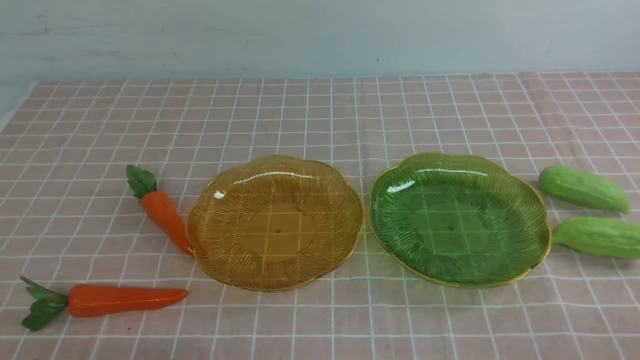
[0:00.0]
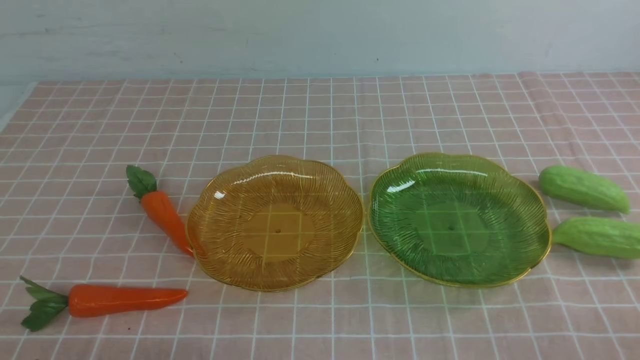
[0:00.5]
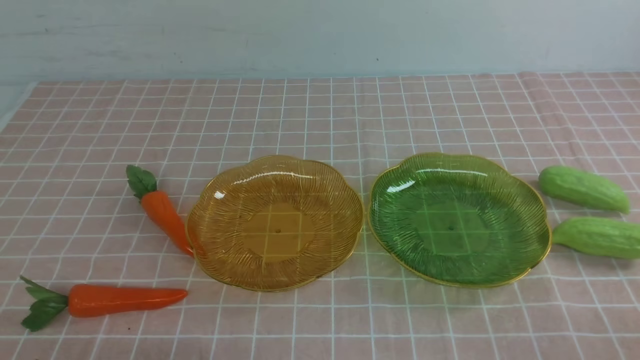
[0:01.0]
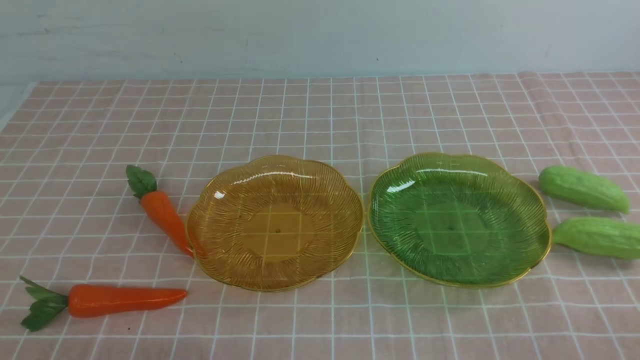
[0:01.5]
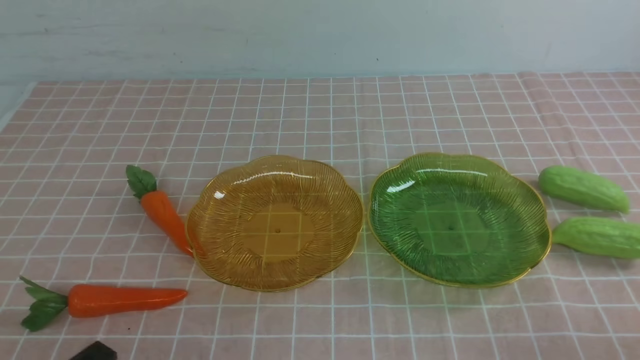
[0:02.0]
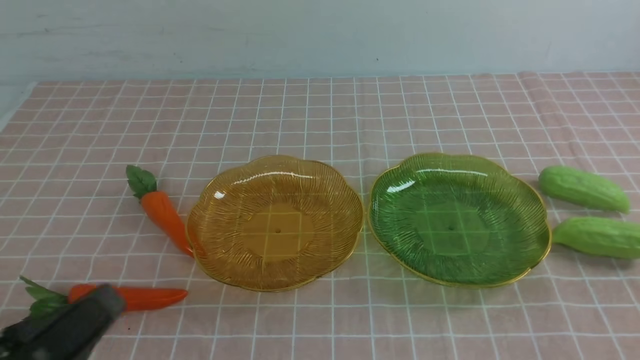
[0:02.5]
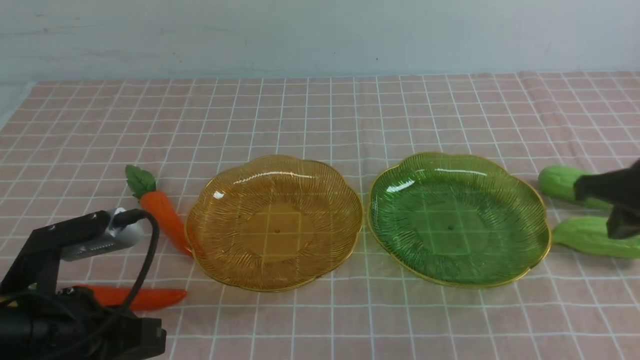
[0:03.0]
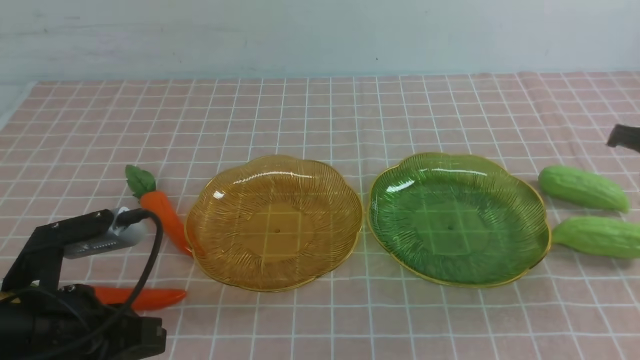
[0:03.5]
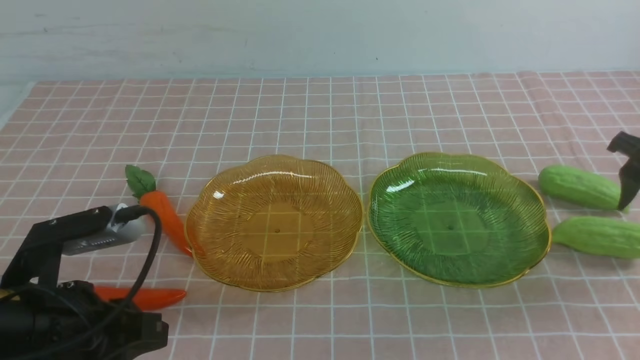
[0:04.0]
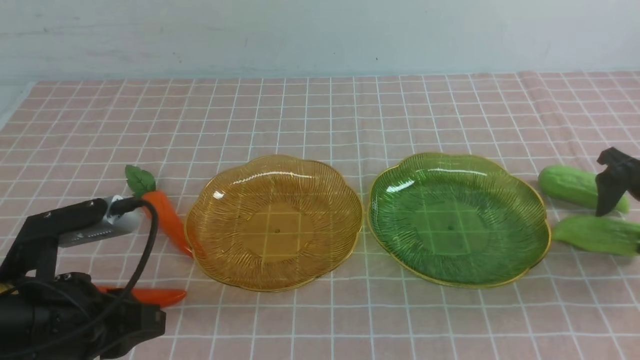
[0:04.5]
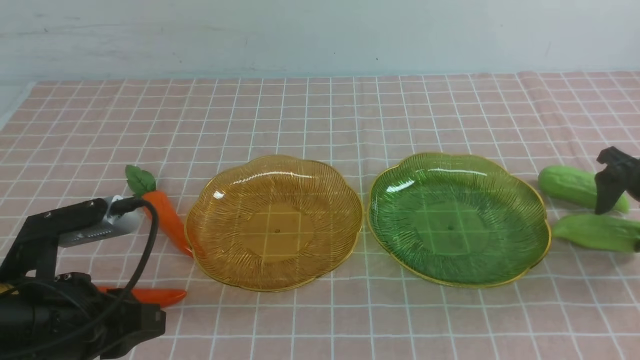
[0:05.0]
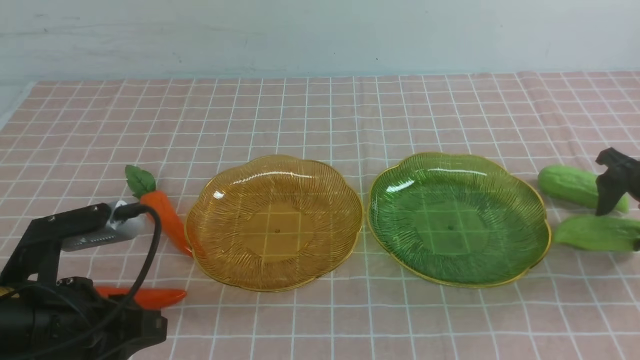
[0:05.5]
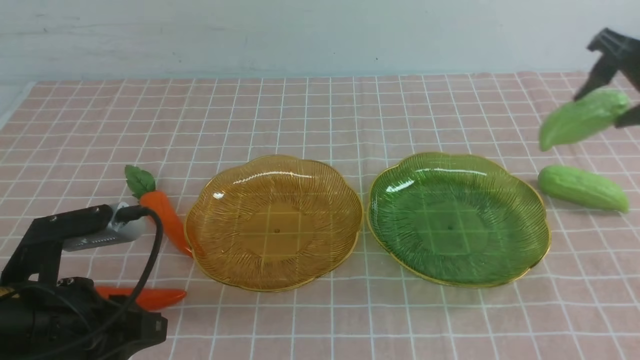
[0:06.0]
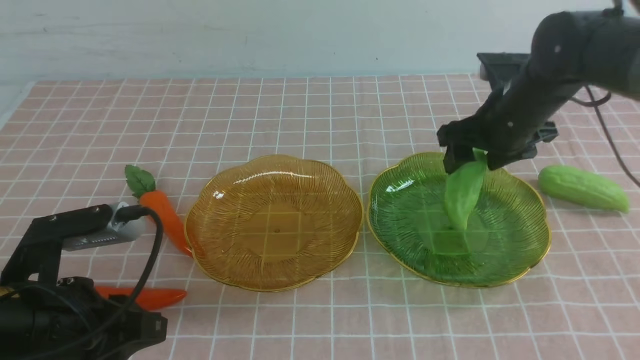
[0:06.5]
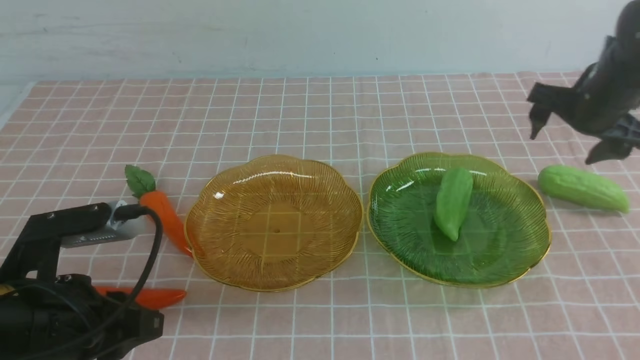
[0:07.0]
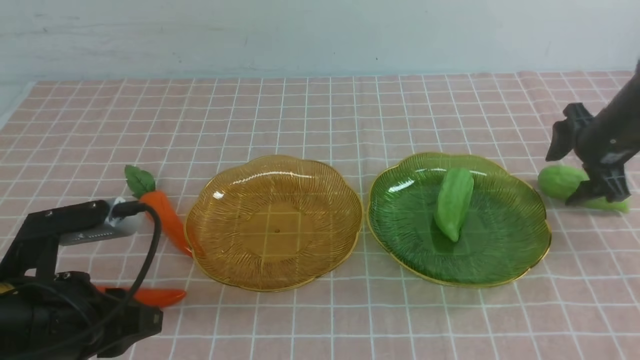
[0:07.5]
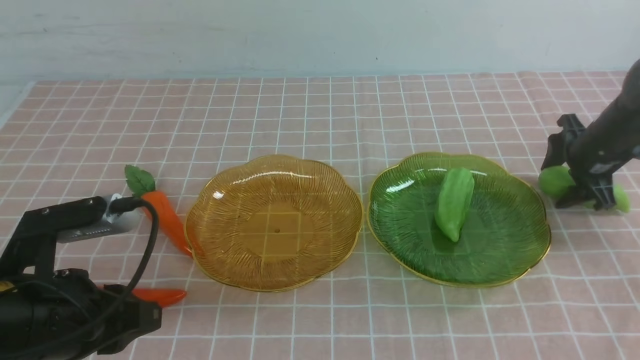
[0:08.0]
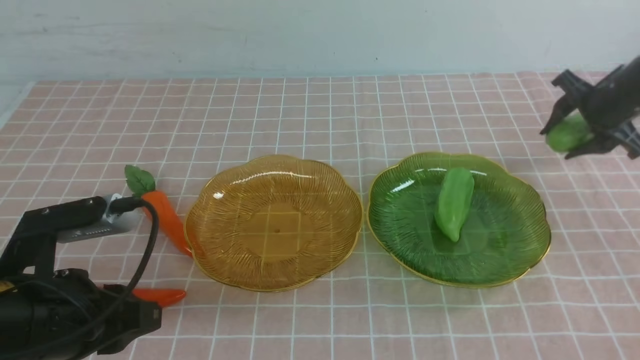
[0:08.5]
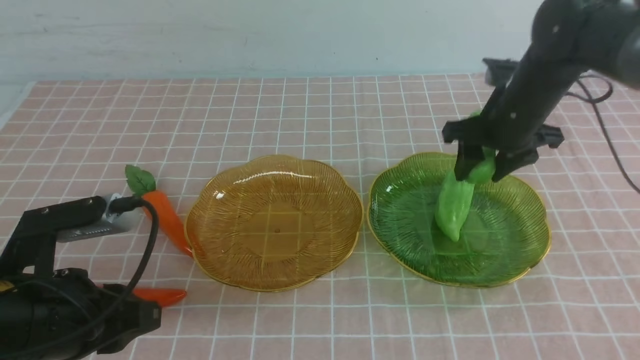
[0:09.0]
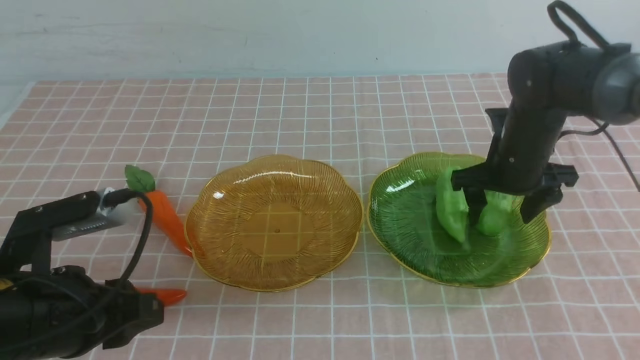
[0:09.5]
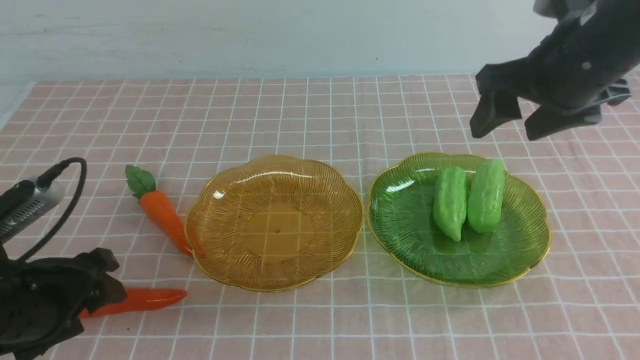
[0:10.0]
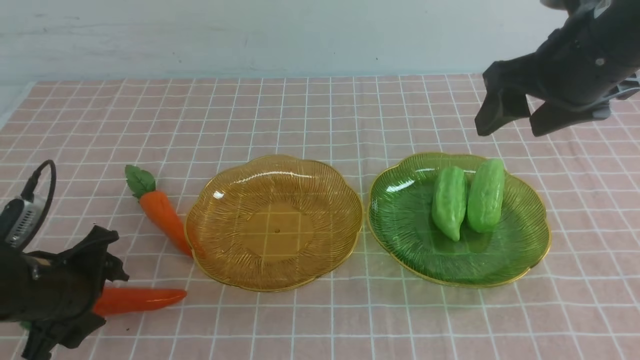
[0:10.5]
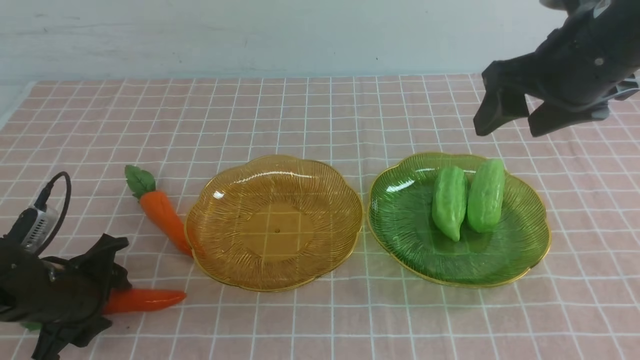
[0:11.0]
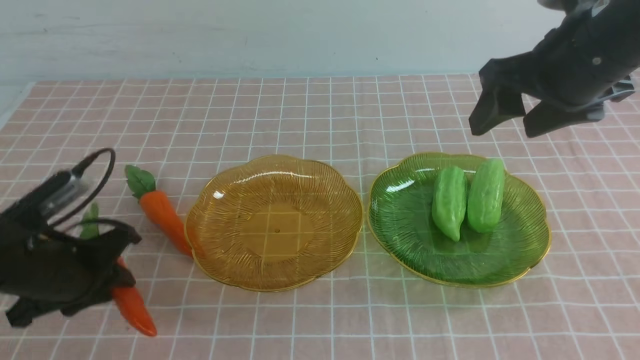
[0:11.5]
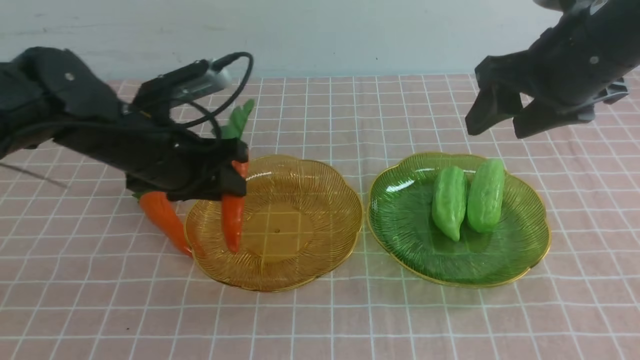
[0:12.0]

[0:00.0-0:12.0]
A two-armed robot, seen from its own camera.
Step, 0:00.0 to 0:09.5: use the right arm to grab a chayote and put it into the right plate.
0:02.0 to 0:04.0: The left gripper is displaced forward by approximately 10 cm. Meanwhile the right gripper shifts approximately 30 cm forward, and opens its fingers.
0:04.0 to 0:06.0: The right gripper is displaced to the left and upward by roughly 10 cm.
0:06.0 to 0:08.0: The right gripper travels downward and to the right by about 15 cm.
0:08.0 to 0:10.0: The left gripper opens. Meanwhile the right gripper travels upward, to the left and backward by roughly 25 cm.
0:10.0 to 0:12.0: The left gripper goes some 15 cm forward and to the right, and closes up.

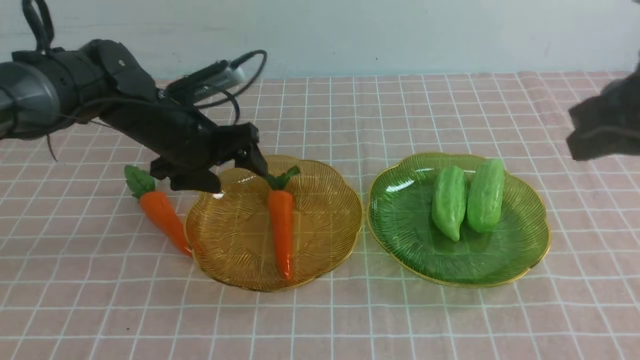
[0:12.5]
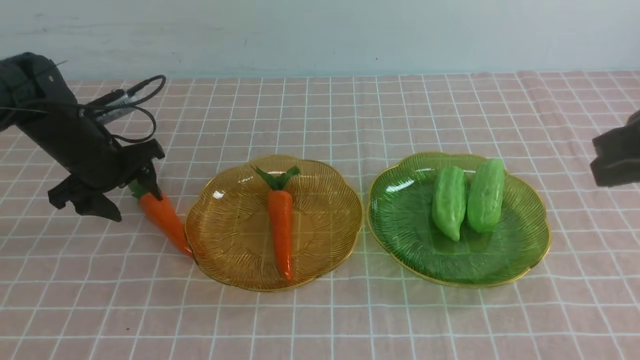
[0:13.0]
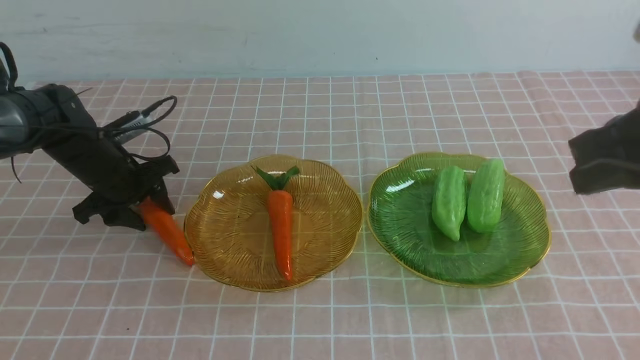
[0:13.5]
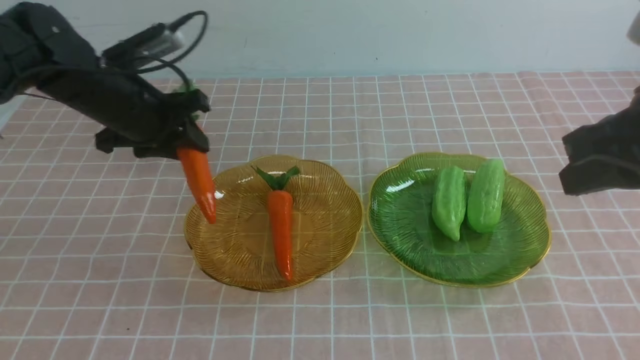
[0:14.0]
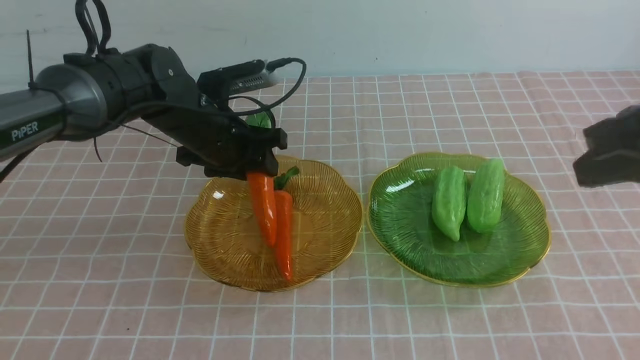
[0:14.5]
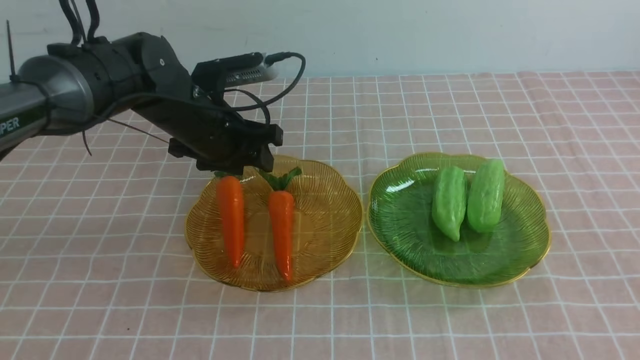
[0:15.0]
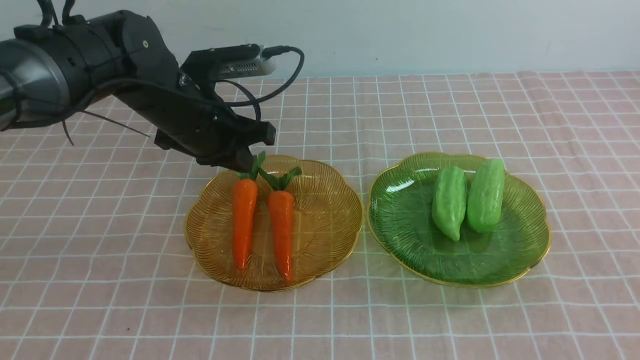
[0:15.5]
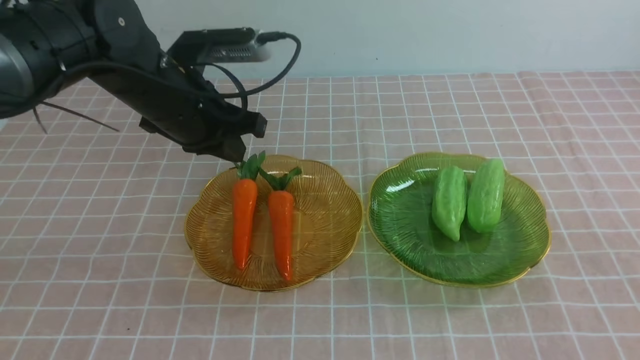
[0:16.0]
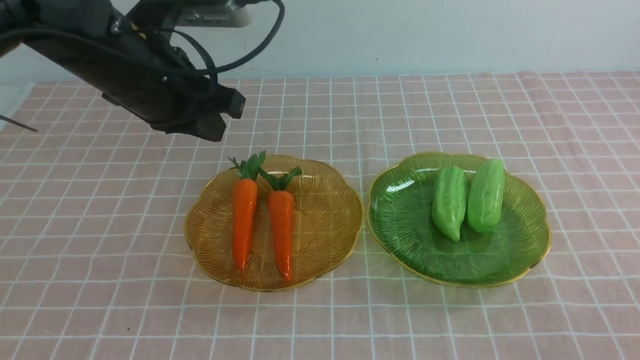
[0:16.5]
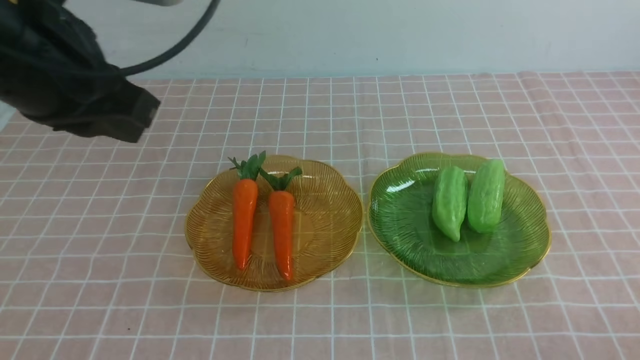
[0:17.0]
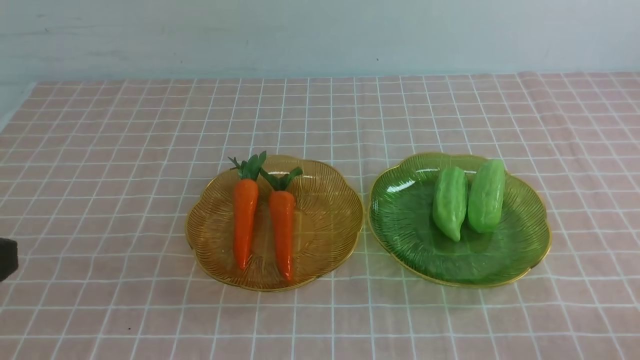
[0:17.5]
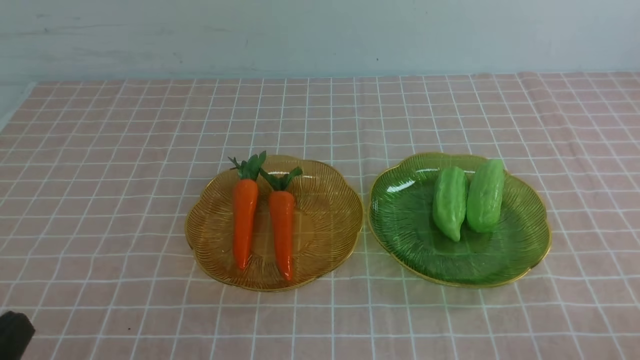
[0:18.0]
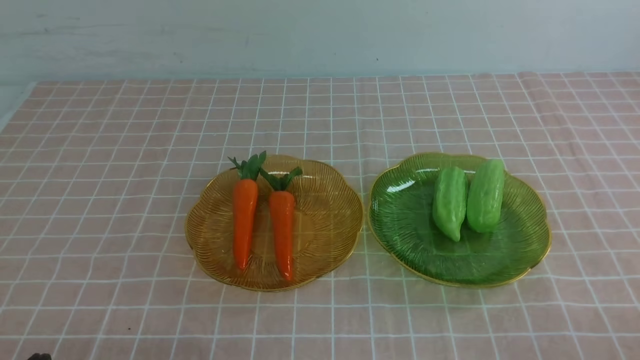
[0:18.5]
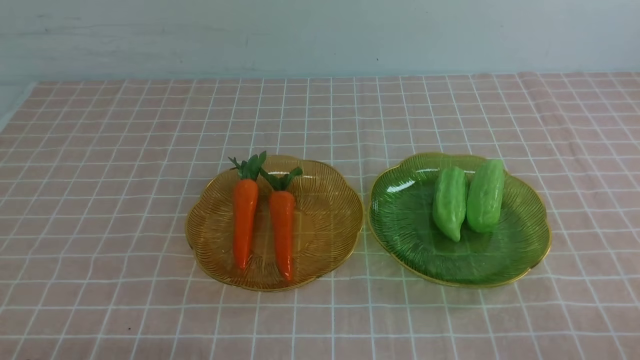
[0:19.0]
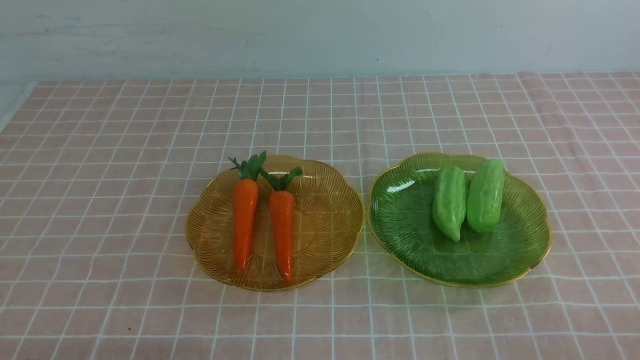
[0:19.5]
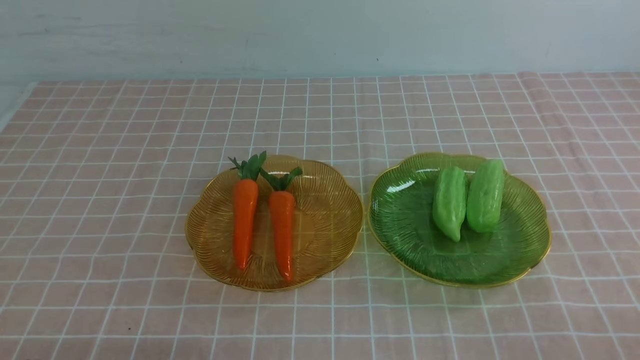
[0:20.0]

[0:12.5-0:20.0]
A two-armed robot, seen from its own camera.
Step, 0:12.5 to 0:14.5: use the left arm to grab a carrot and put it into the left plate.
0:12.5 to 0:14.5: The left gripper goes to the left and returns, roughly 10 cm each way. The right gripper is displaced backward by approximately 10 cm.
0:14.5 to 0:16.5: The left gripper heads upward and backward, covering approximately 15 cm, and closes, while the right gripper is displaced downward and backward by about 20 cm.
0:16.5 to 0:18.0: The right gripper is displaced downward by roughly 5 cm, while the left gripper shifts roughly 30 cm backward.
